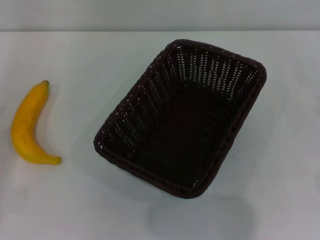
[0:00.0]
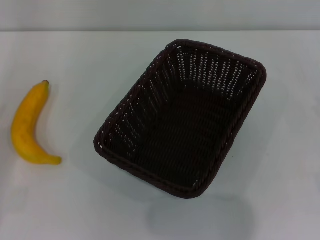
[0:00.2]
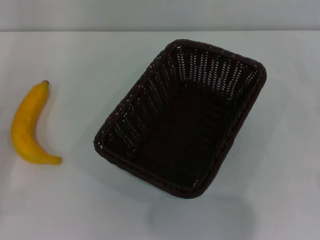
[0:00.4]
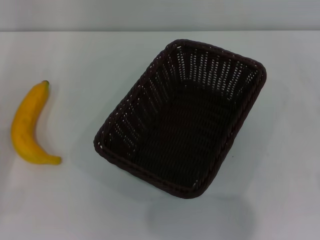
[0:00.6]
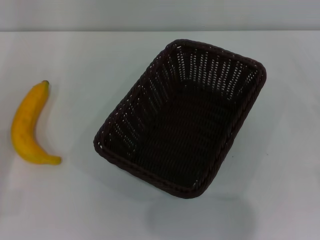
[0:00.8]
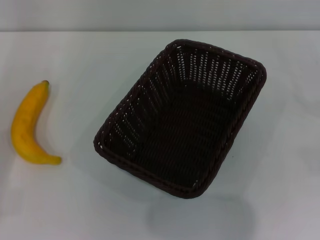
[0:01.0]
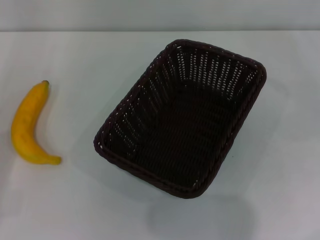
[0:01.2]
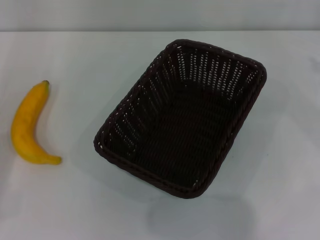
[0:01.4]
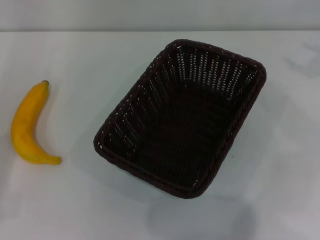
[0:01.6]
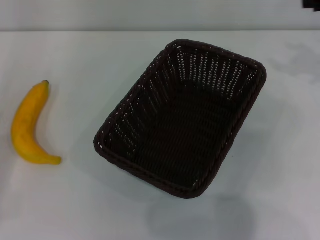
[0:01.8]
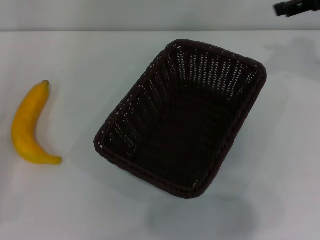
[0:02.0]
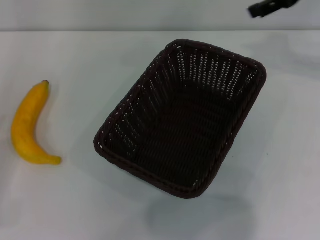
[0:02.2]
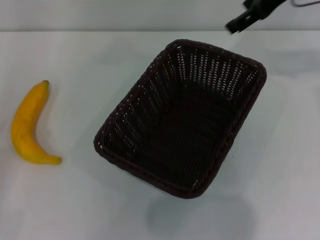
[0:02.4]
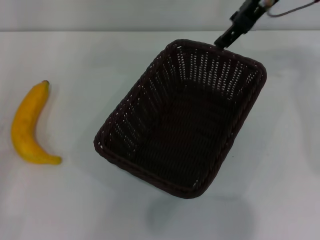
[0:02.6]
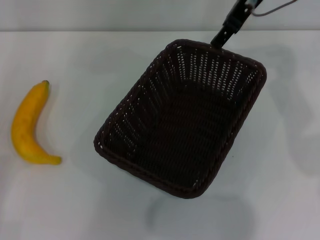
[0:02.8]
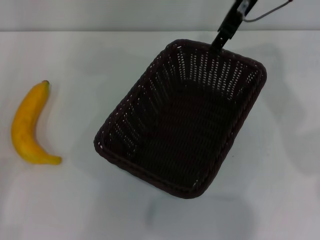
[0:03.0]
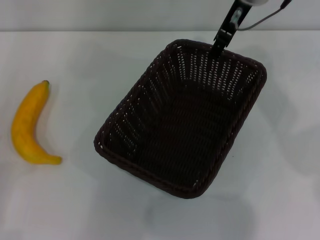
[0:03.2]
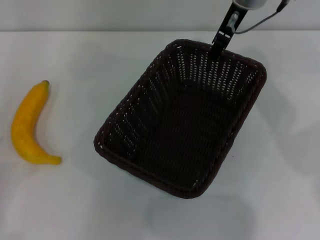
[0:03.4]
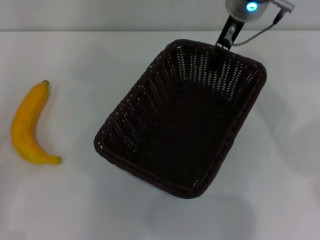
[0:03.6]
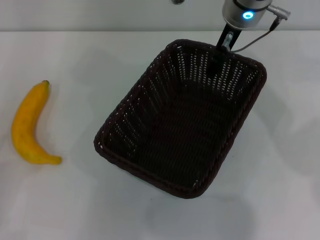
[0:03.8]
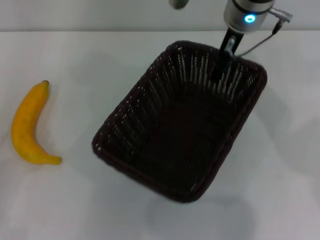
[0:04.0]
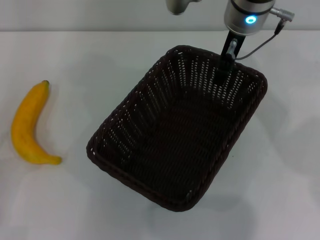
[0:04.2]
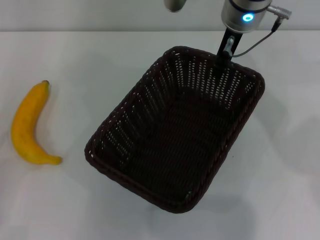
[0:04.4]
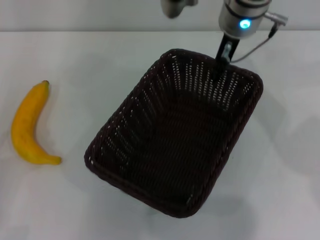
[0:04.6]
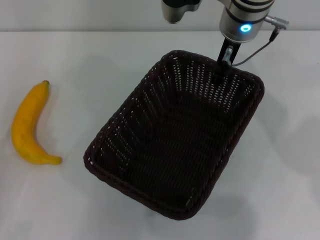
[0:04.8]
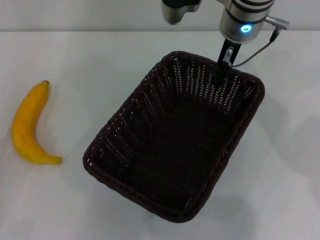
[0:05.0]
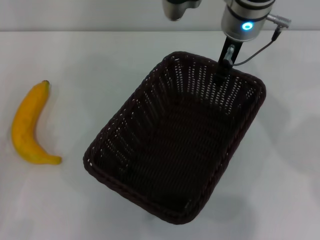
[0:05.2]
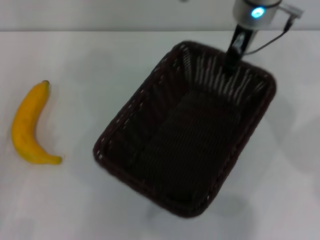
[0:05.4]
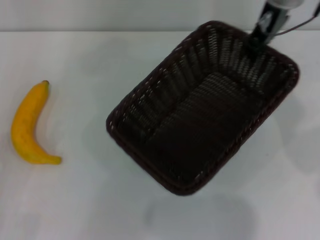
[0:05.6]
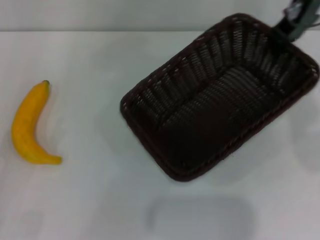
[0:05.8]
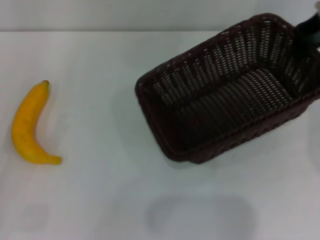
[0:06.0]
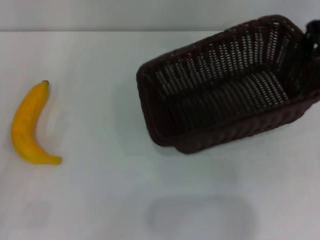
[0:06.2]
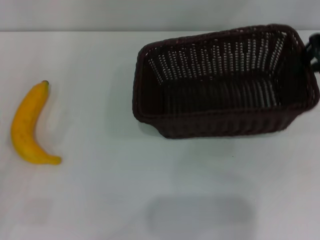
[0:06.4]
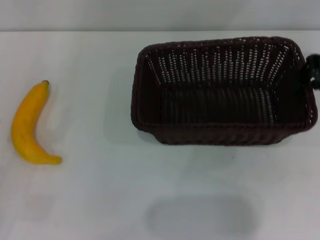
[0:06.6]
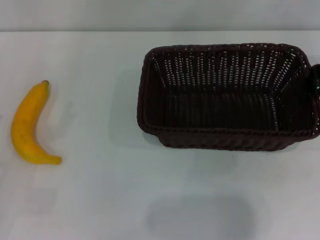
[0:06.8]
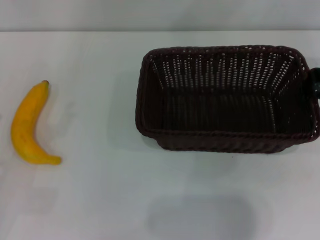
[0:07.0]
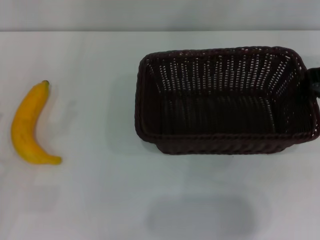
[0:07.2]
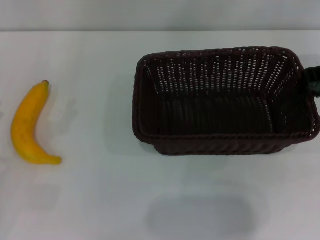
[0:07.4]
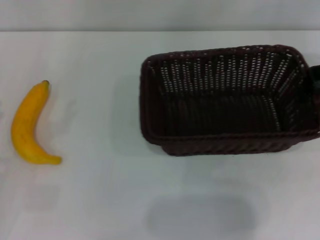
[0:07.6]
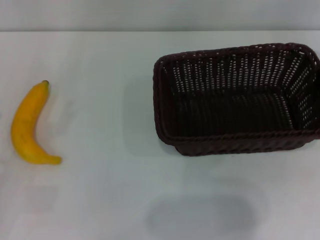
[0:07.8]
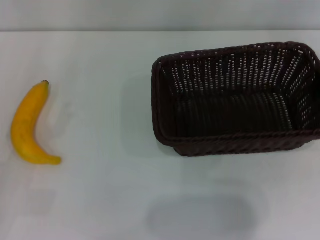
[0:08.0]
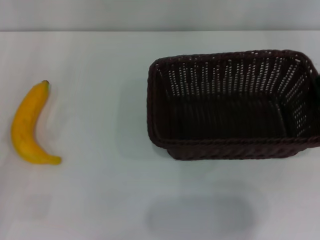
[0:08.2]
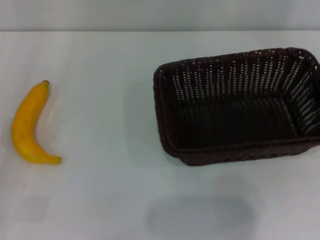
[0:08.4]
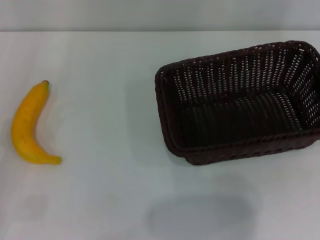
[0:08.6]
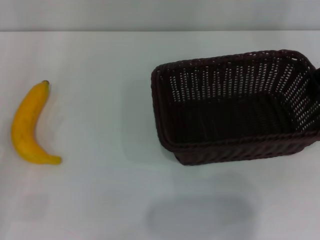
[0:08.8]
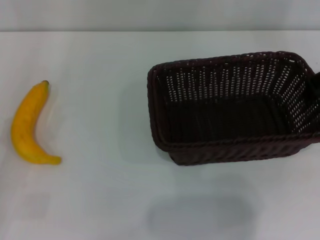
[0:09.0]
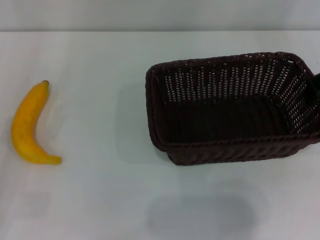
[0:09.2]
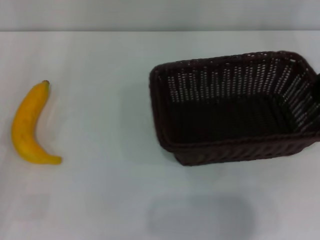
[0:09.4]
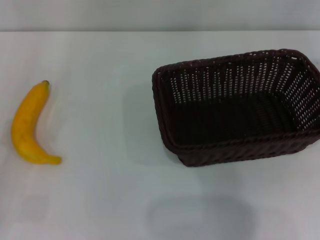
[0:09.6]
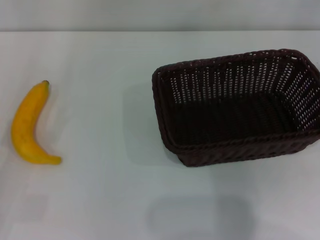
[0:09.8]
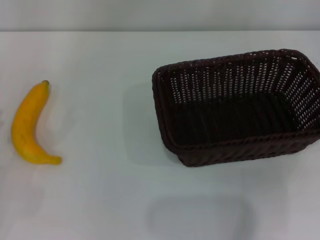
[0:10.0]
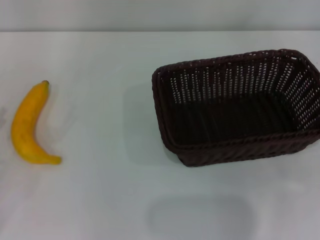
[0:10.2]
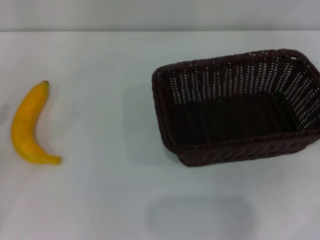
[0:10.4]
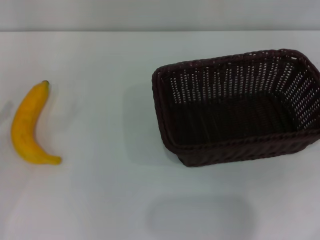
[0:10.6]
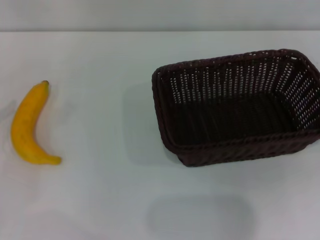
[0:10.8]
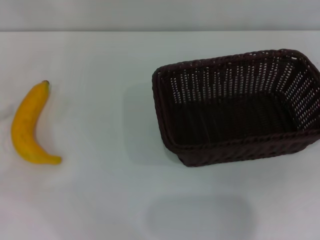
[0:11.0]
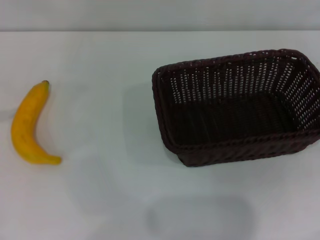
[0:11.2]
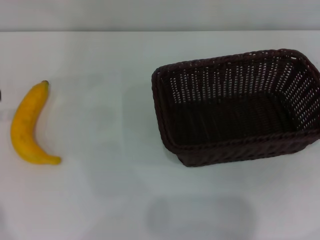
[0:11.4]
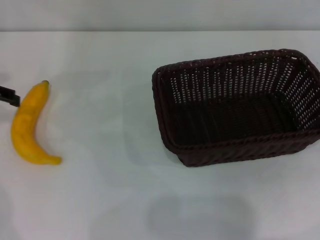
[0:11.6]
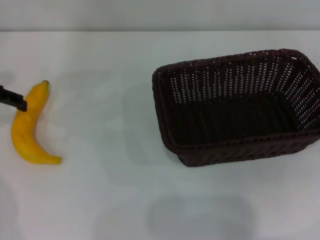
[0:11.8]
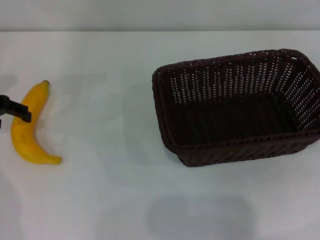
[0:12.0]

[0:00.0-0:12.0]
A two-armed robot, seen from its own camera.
Step, 0:00.0 to 0:05.4: Pick up the dark basket with the right gripper.
Step, 0:05.8 to 0:09.6: Place the dark basket in the center of view with the right gripper.
0:01.6 to 0:03.0: The right gripper travels to the left by some 25 cm.
0:03.0 to 0:04.4: The right gripper changes place by some 5 cm, and closes its fingers.
0:04.4 to 0:06.0: The right gripper travels to the right by roughly 15 cm, and closes up.
0:06.0 to 0:07.6: The right gripper moves backward and downward, some 5 cm.
0:09.0 to 0:10.4: The left gripper is displaced upward by approximately 5 cm, while the right gripper goes about 25 cm to the right and backward.
0:10.4 to 0:12.0: The left gripper travels forward and to the right by some 15 cm.

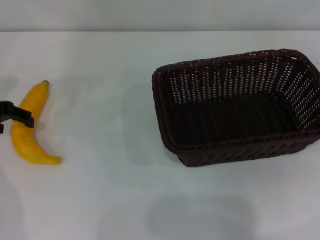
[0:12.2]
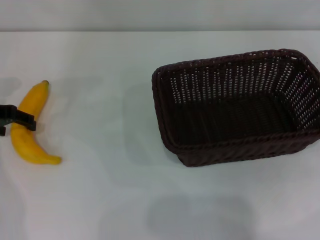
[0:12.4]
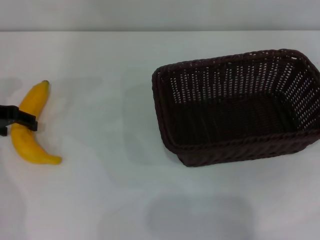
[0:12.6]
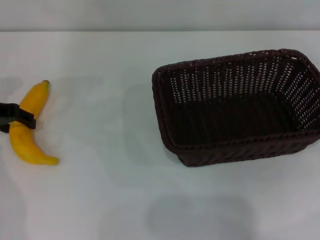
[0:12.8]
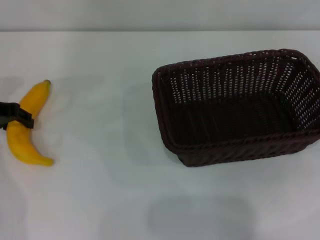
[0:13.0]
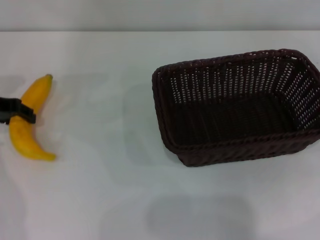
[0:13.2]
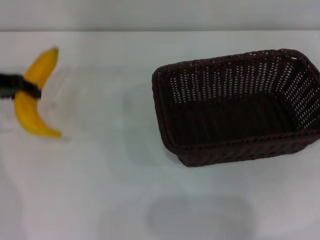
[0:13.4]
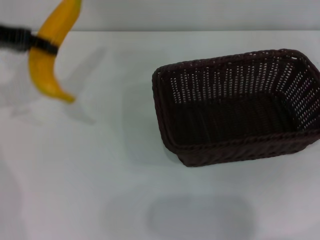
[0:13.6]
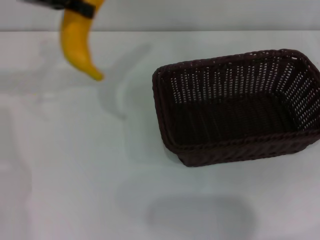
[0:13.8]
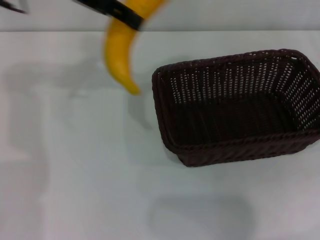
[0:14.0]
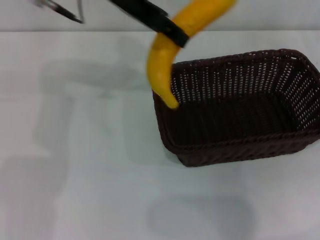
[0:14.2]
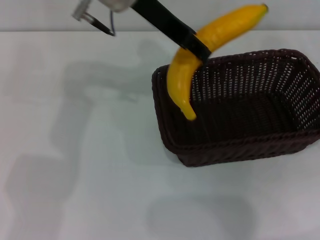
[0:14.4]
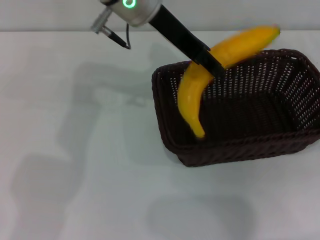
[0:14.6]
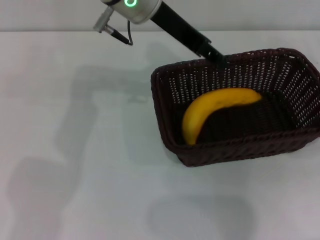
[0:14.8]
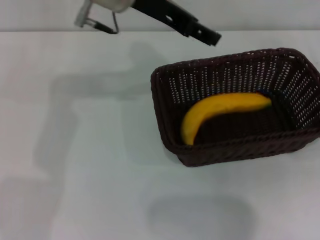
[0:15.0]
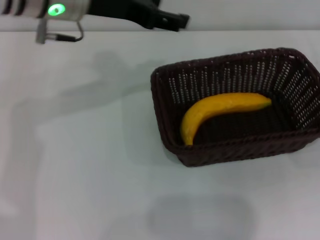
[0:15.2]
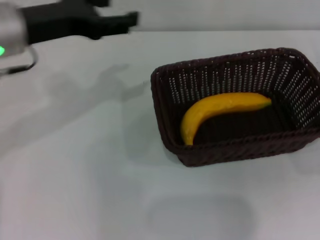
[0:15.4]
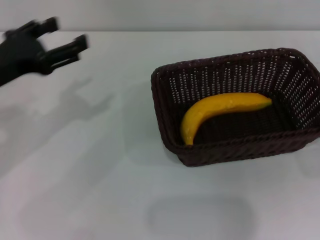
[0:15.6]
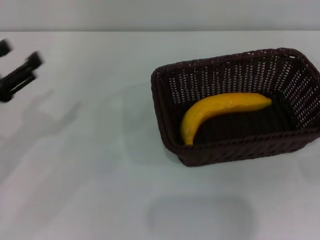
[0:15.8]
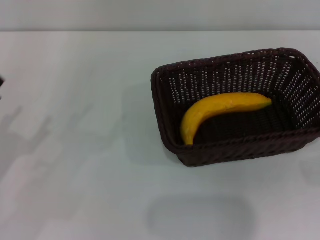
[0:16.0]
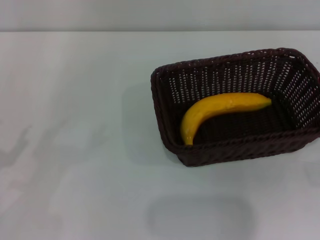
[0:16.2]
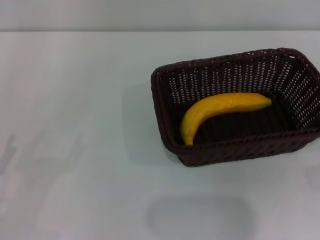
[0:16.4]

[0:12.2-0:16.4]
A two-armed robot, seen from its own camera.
Step, 0:13.6 to 0:14.8: Place the banana into the dark basket with the left gripper.
0:12.2 to 0:13.6: The left gripper moves upward, roughly 10 cm, and closes.
0:13.6 to 0:15.0: The left gripper shifts approximately 20 cm to the right, and opens.
0:15.0 to 0:16.4: The right gripper travels downward by some 5 cm, and opens, while the left gripper travels backward, to the left and downward by some 40 cm.
